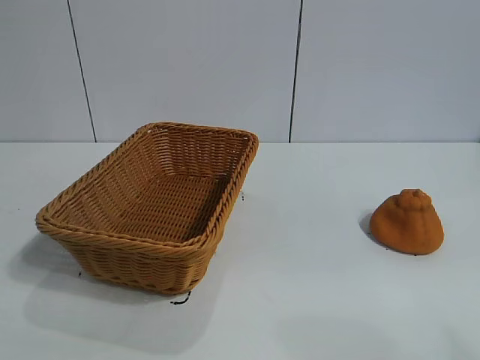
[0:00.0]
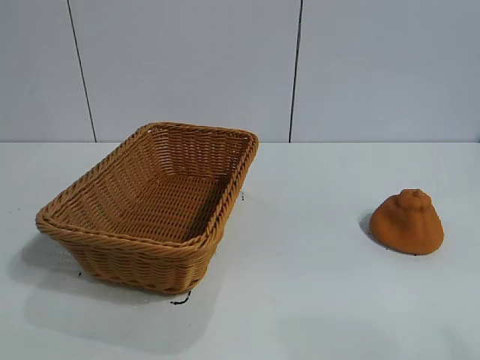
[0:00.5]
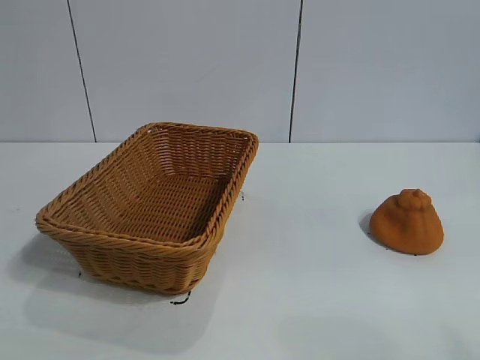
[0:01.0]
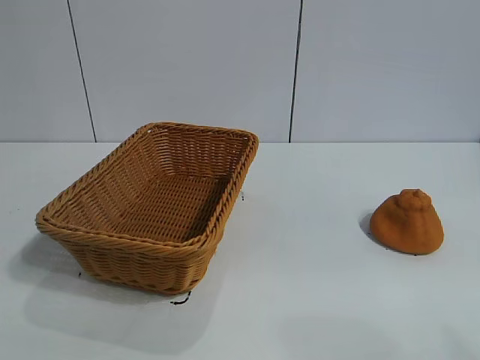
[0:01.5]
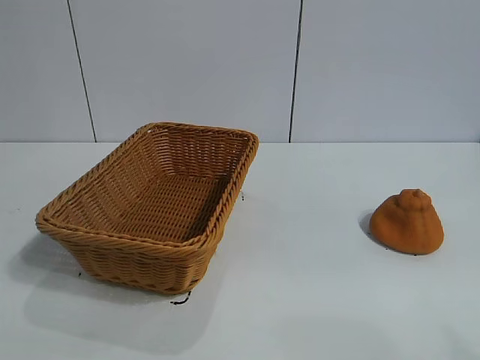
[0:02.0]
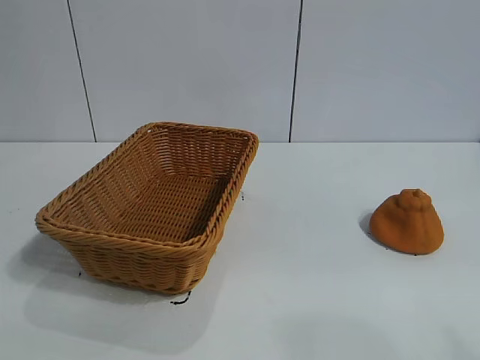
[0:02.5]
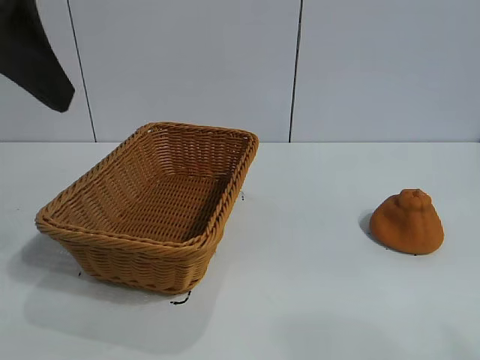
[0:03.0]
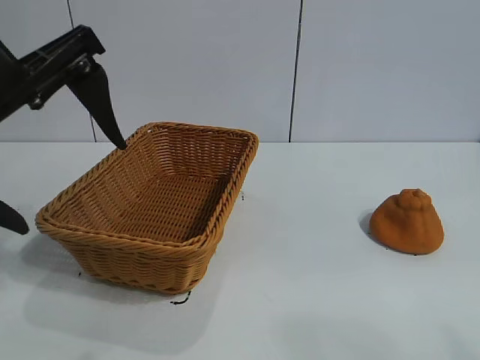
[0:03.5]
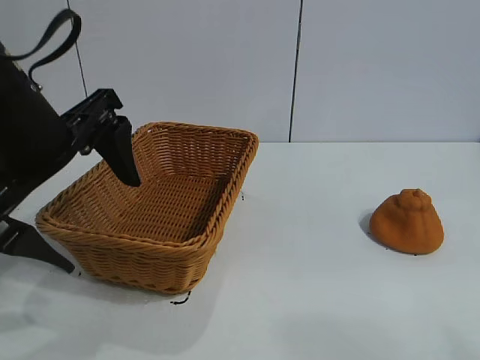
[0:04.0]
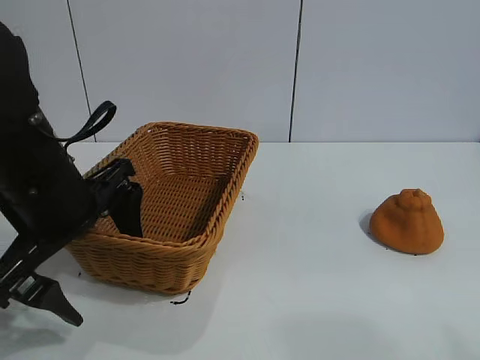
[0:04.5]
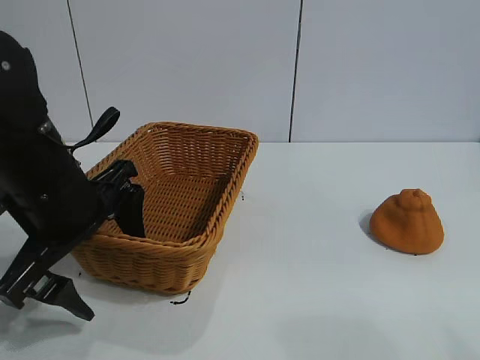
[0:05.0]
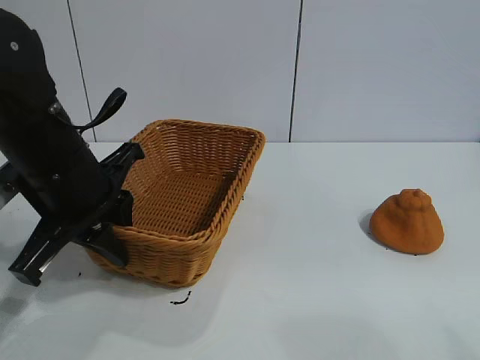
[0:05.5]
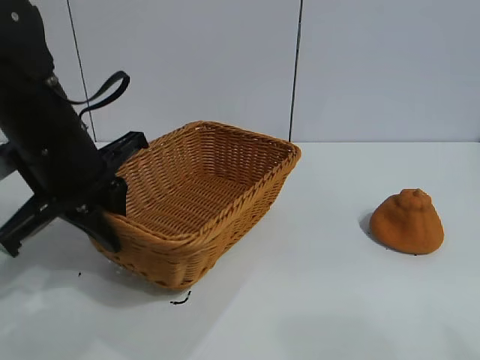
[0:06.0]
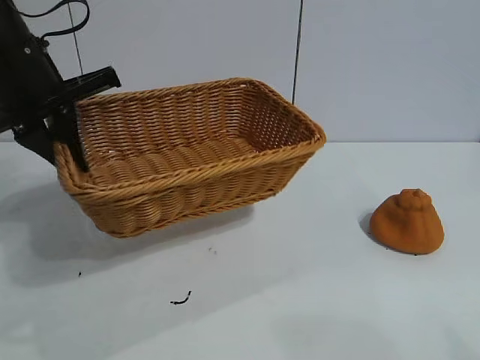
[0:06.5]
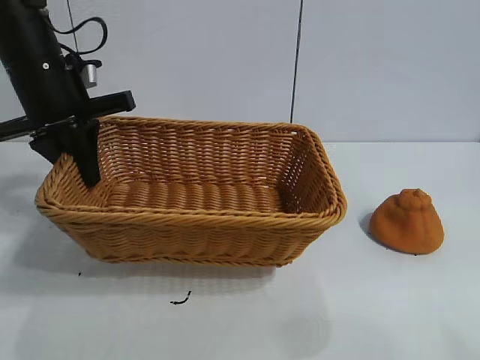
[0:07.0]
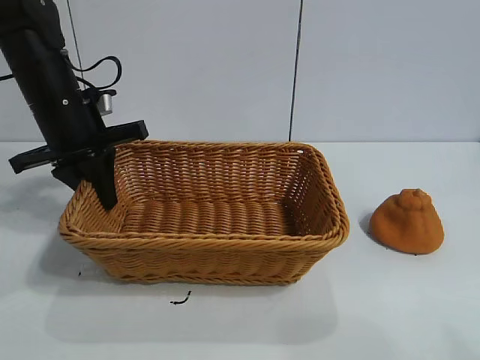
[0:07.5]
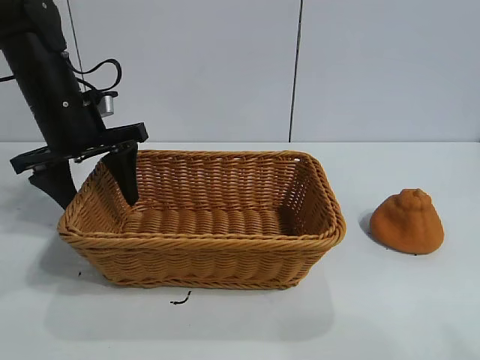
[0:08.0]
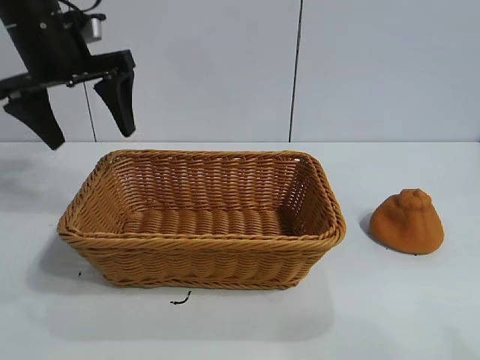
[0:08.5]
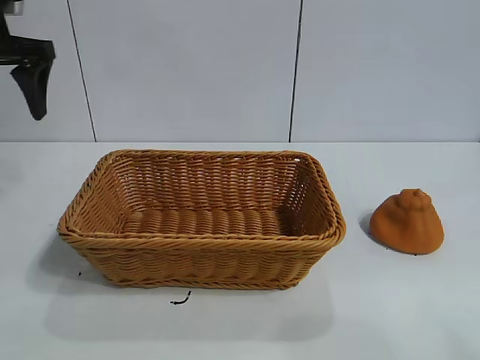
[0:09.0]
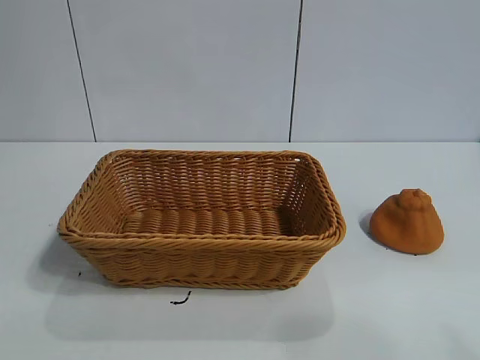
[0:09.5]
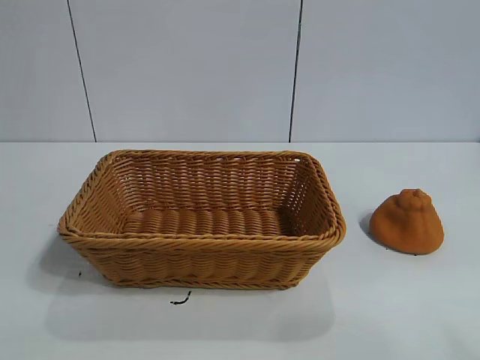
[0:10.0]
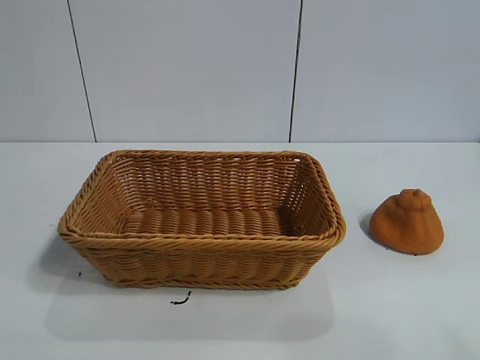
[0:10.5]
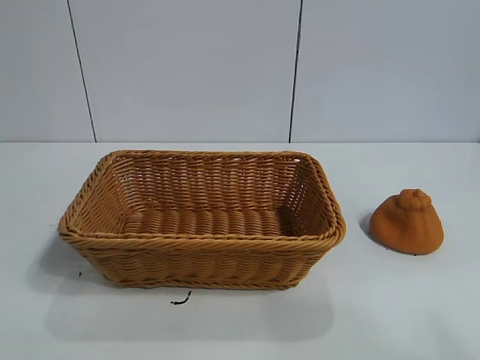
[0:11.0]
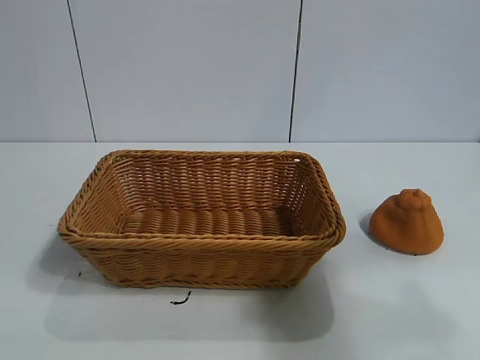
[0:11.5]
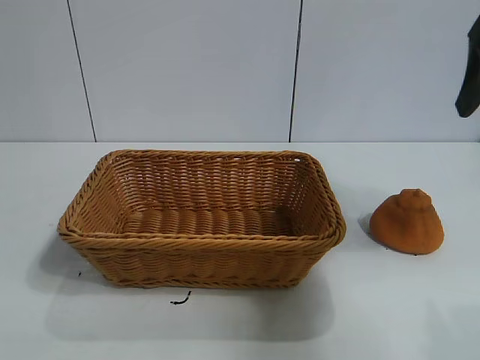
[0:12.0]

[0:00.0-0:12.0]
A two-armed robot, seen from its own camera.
Task of the whole recording: pick up the orange and put it into the basket.
Step, 0:02.0 to 0:05.5: Grasp the basket with left gripper.
Step, 0:06.0 to 0:08.0: Place the basket in the center of view with left gripper.

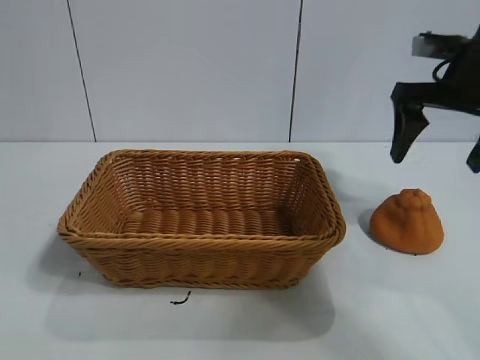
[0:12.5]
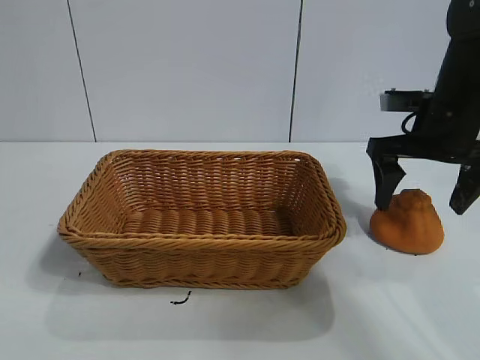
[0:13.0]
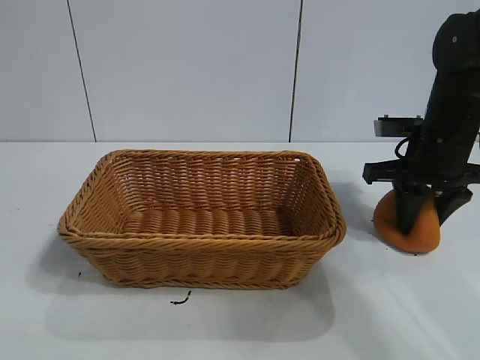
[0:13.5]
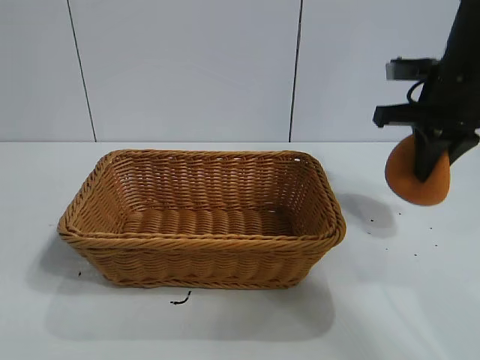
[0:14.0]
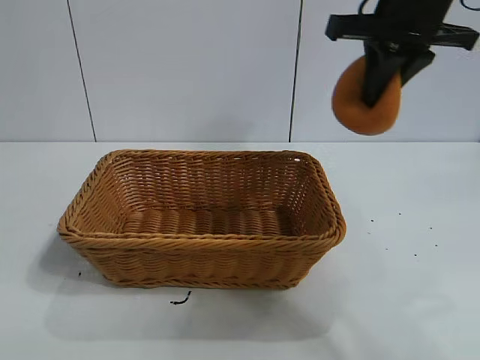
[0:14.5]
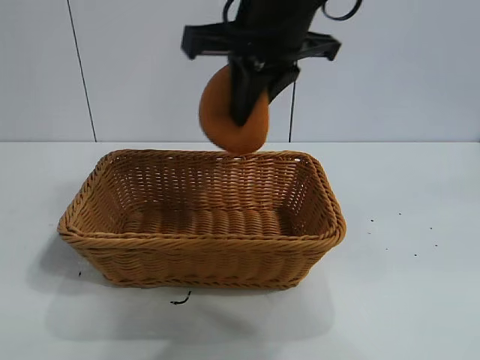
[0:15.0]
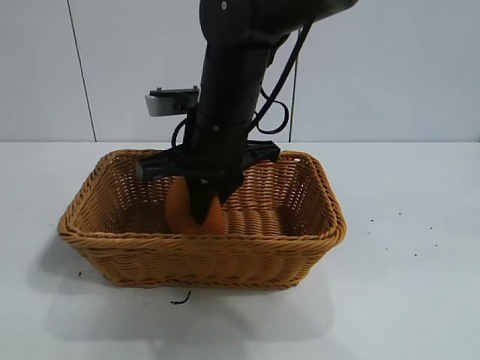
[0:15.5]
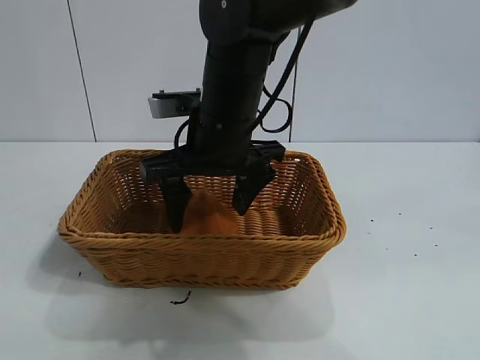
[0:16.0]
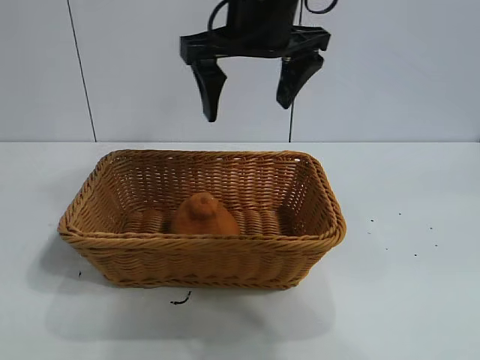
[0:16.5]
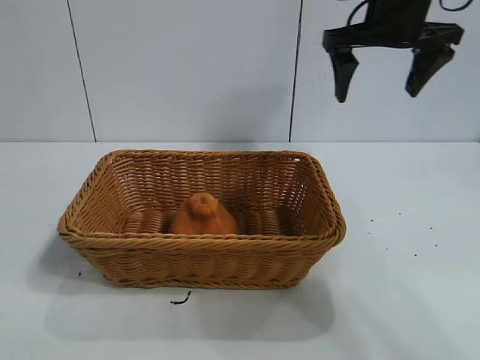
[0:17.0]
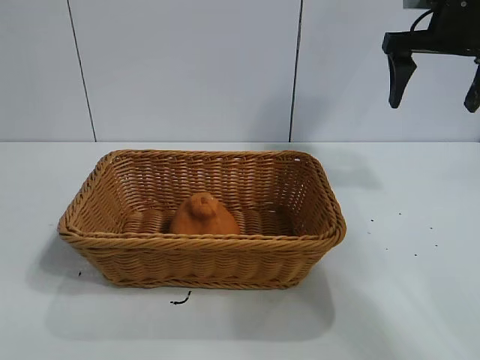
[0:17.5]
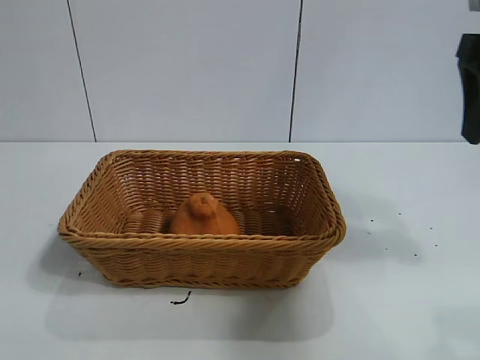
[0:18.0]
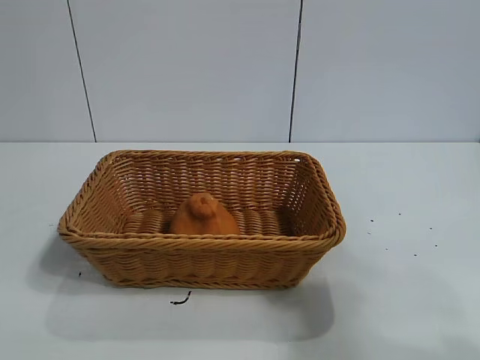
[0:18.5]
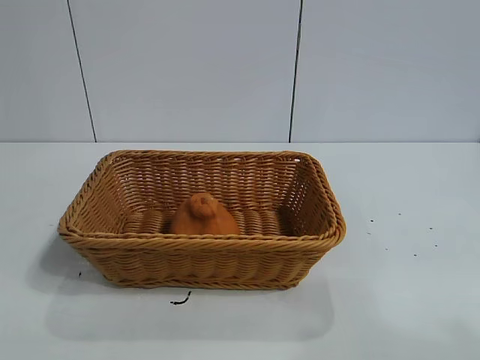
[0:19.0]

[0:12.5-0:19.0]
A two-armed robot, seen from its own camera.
Task of the whole recording: pick up the orange and put it into the basket.
Step, 0:14.0 to 0:16.0: Place the orange in the basket with right gripper.

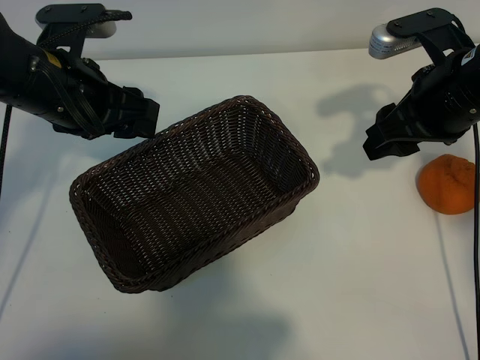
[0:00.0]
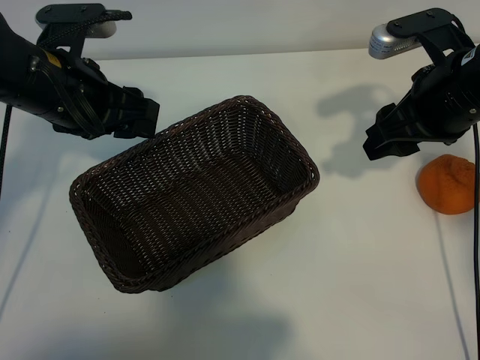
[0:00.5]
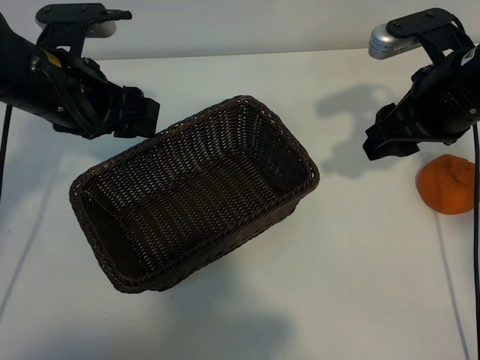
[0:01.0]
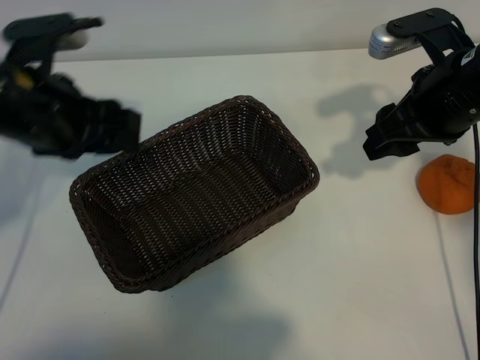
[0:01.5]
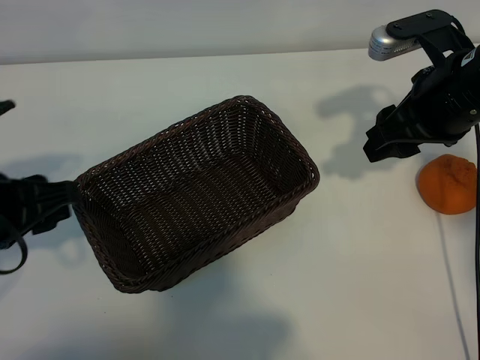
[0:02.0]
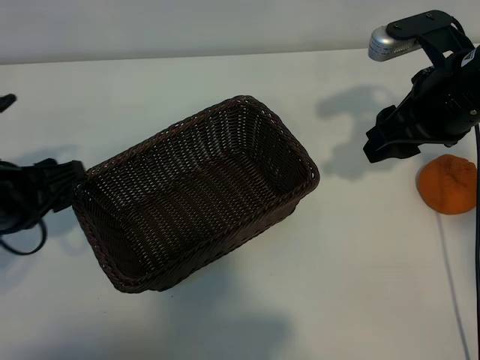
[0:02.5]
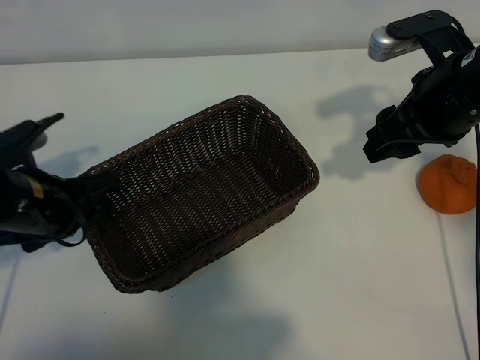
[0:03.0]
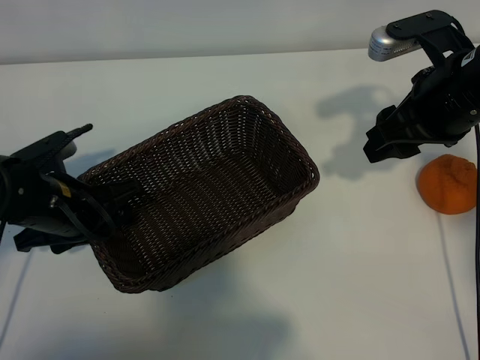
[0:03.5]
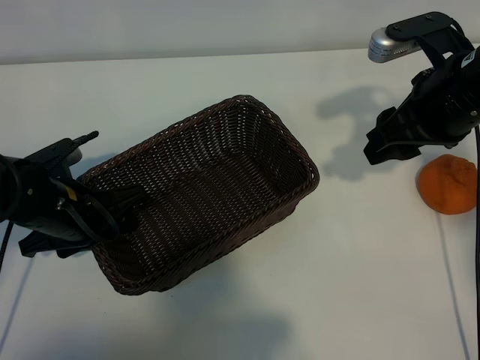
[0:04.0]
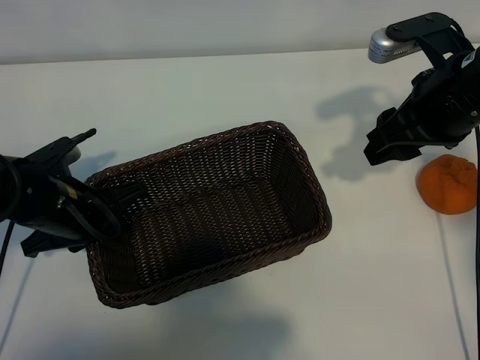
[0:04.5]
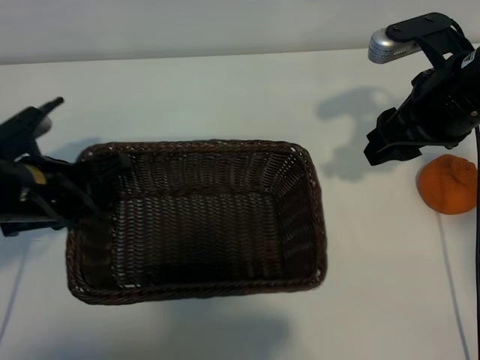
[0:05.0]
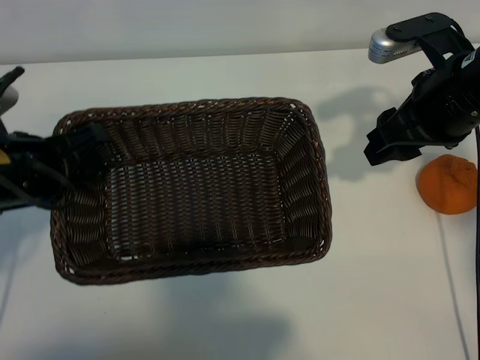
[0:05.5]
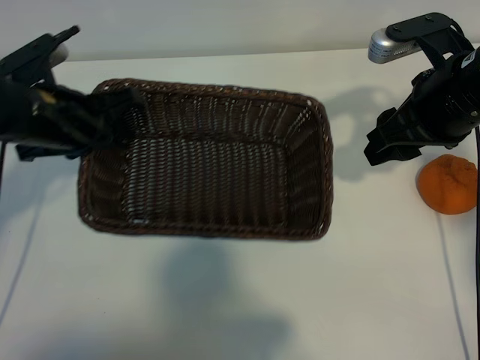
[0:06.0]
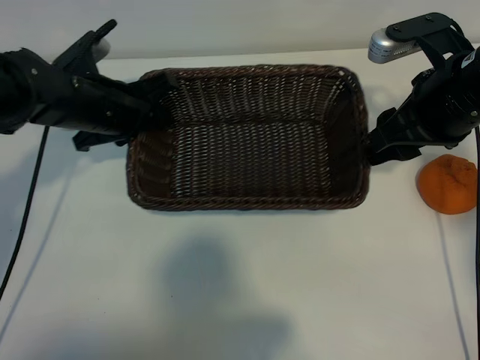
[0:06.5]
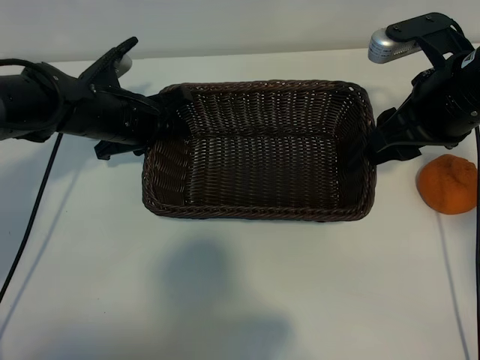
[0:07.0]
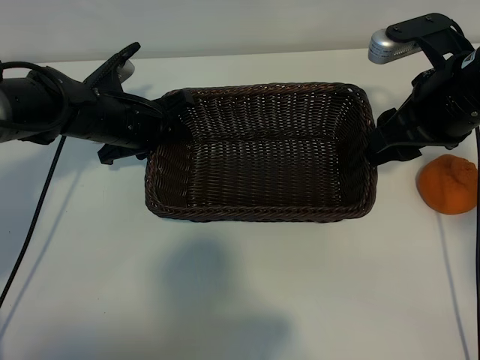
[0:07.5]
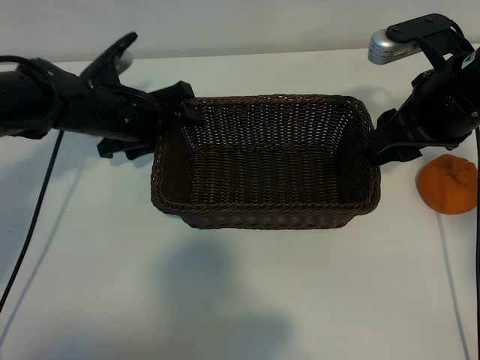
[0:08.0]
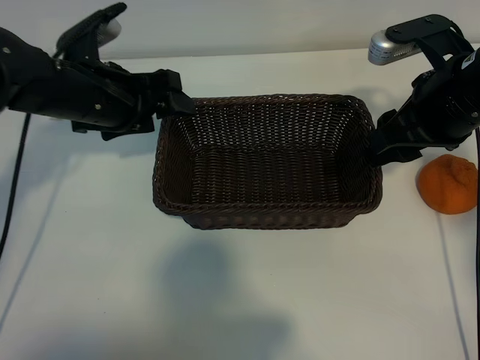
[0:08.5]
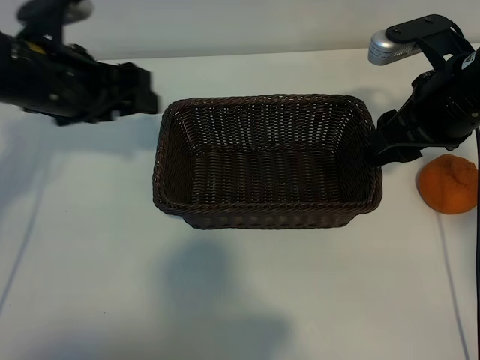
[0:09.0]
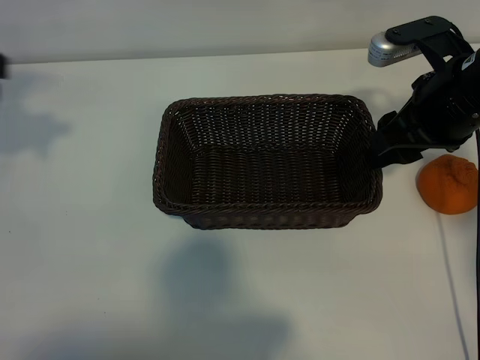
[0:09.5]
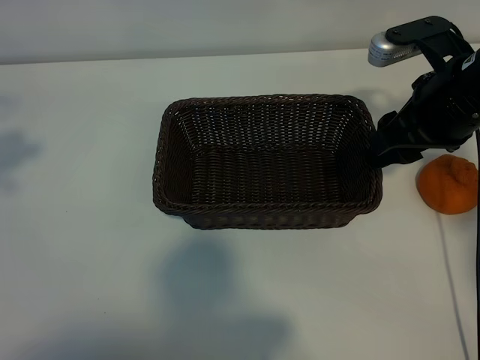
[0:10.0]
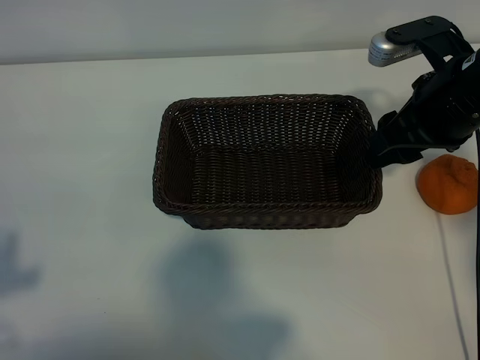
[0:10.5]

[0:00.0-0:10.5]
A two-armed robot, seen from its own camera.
Task of the whole recording: pick up the orange and put it into the basket.
Step, 0:01.5 to 0:04.0: Grasp the basket with left gripper.
Step, 0:04.5 to 0:07.5: Place the basket in the center of view with left gripper.
